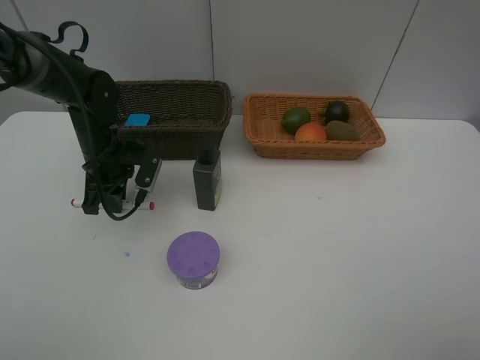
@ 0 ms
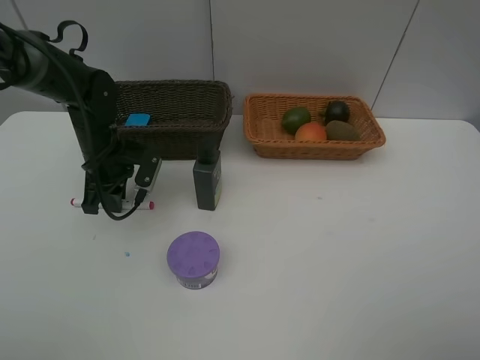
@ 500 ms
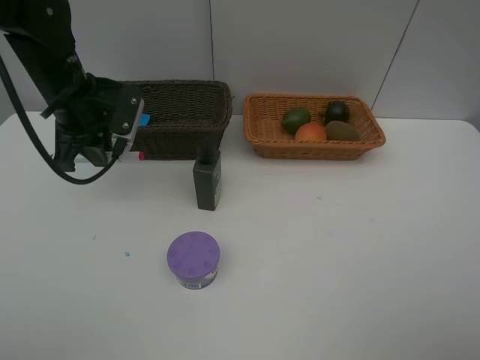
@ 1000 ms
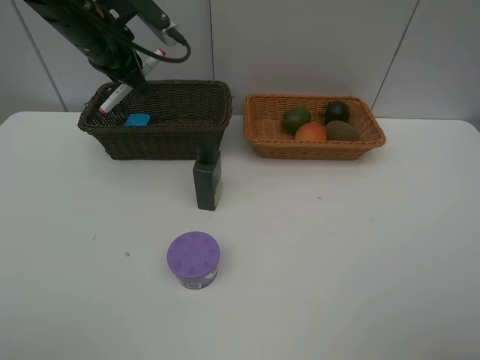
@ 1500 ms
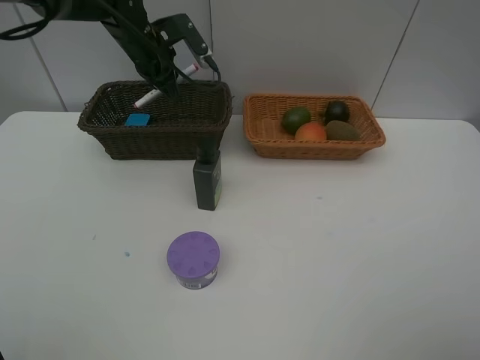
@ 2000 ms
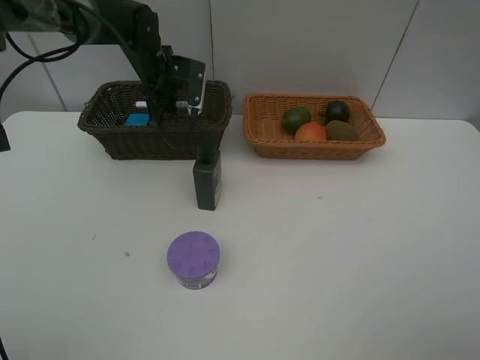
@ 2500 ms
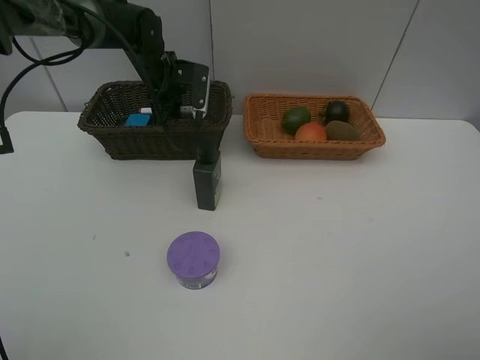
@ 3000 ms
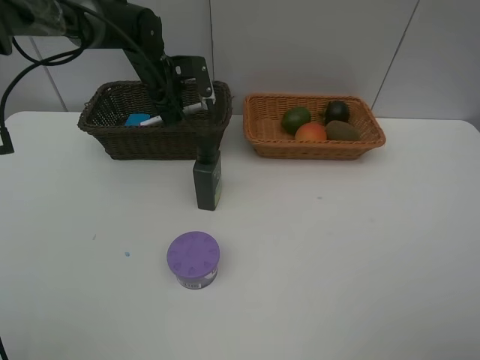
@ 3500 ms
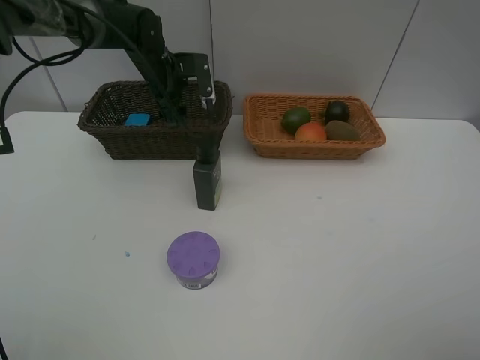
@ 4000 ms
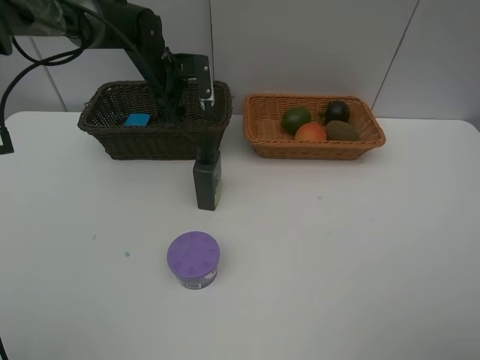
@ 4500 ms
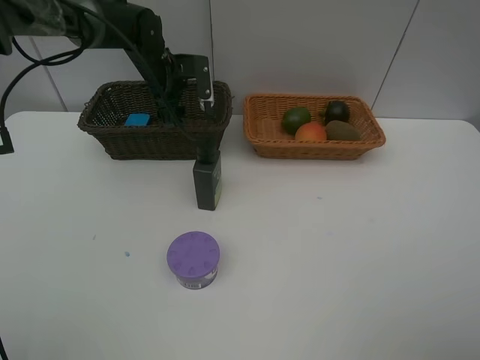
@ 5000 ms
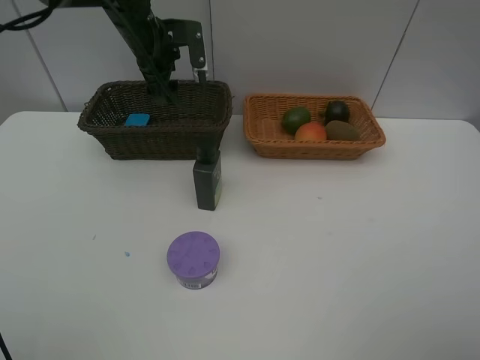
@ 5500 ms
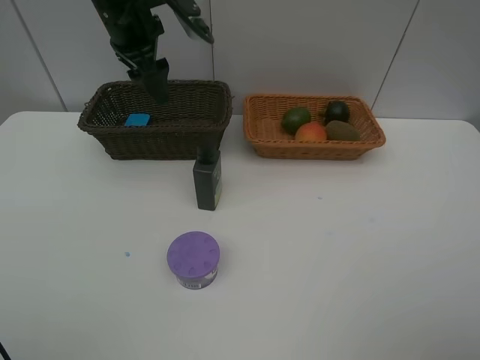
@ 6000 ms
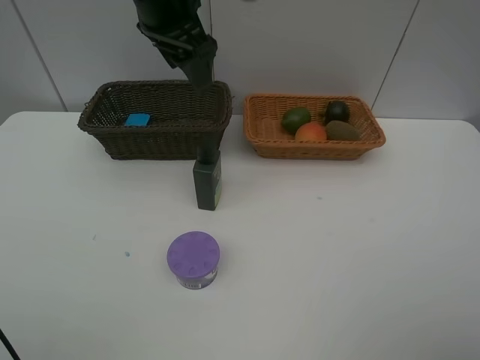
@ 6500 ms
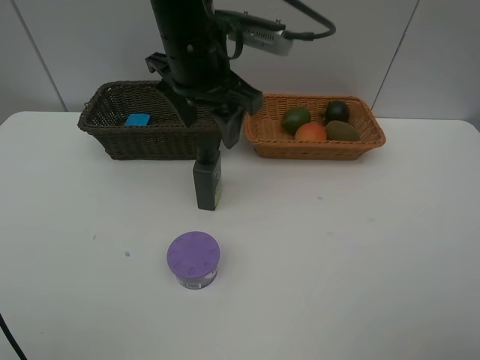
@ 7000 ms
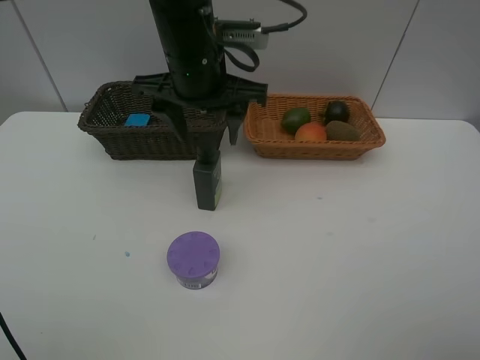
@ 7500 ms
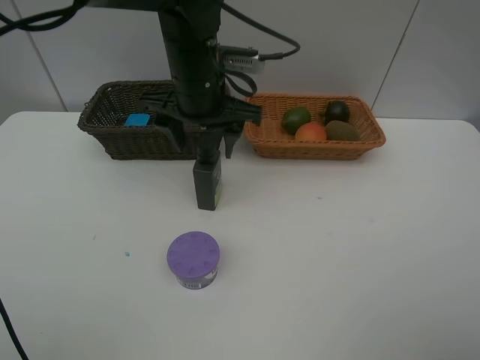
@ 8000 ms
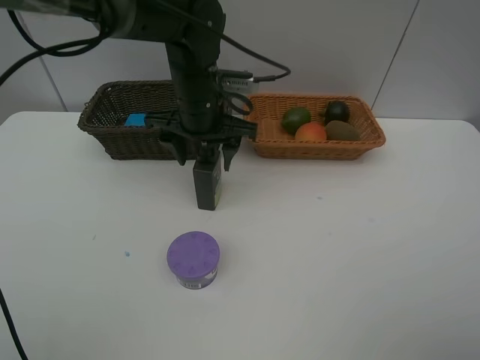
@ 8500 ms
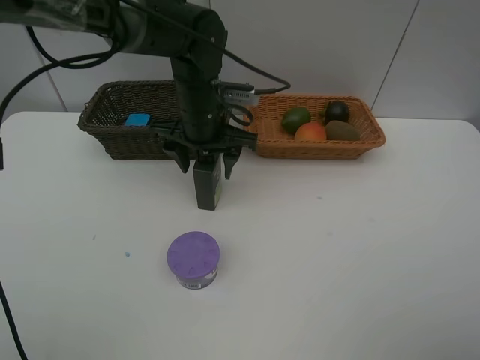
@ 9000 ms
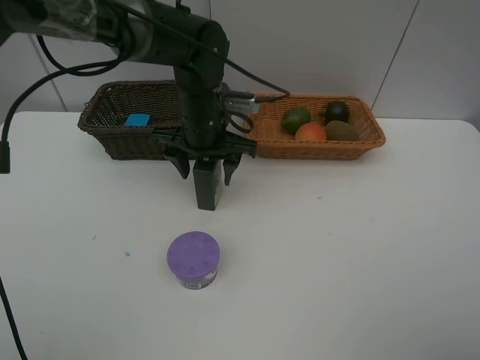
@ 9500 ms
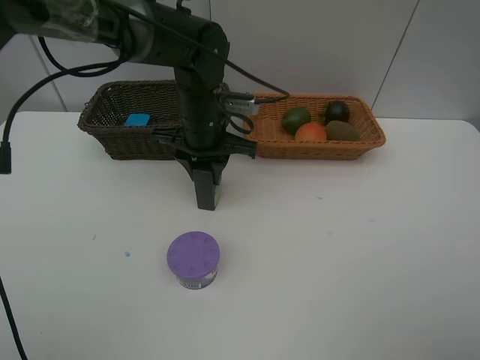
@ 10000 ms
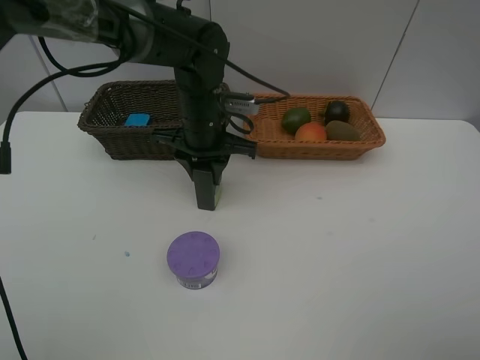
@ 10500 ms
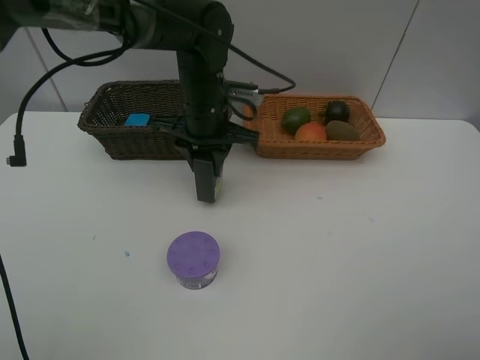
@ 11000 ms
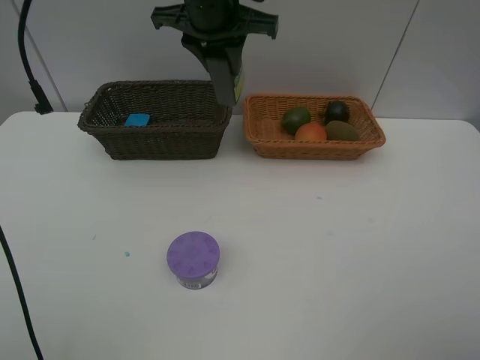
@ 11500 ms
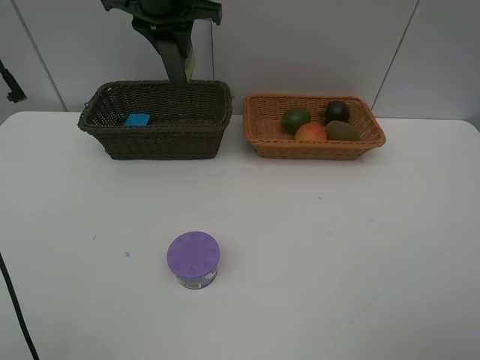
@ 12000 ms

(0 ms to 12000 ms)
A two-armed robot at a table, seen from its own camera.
Task of the whole recording: Place multiple objects separately in different baskets.
Step, 1000 ms - 5000 ms: Place the red marker in the dark basket with left gripper.
Step, 5500 ms - 11000 ms: Pick up the hard facial cleanser with left gripper.
0 ms - 2000 ms: The left gripper shifts some 20 cm forward, upward and to the right.
2000 ms - 4000 ms: The left gripper opens its fingers.
4000 ms - 6000 ms: The left gripper is displaced upward and backward by roughly 15 cm.
6000 ms - 8000 ms: The left gripper travels to the right, backward and downward by about 15 cm.
8000 ms - 10000 ms: The left gripper goes roughly 5 cm downward, and closes.
10000 ms - 12000 ms: The left gripper goes roughly 20 cm upward, forward and to the left.

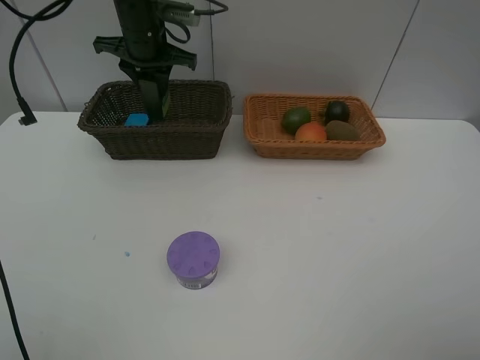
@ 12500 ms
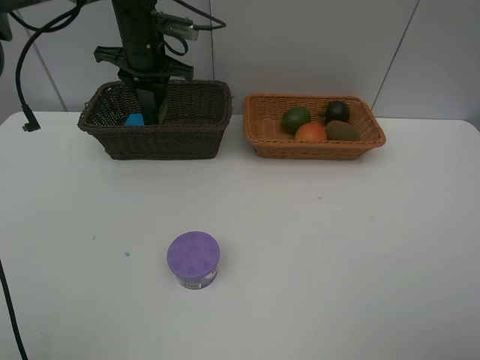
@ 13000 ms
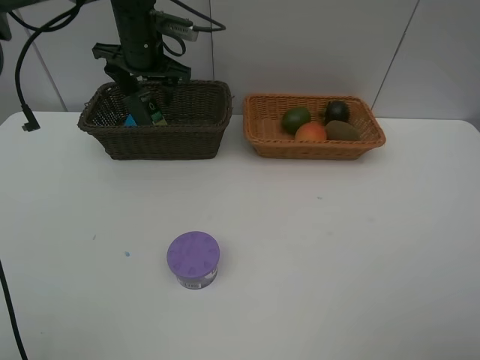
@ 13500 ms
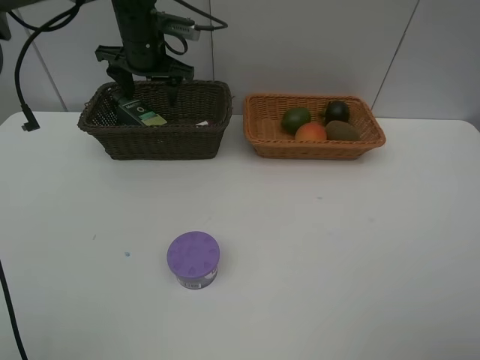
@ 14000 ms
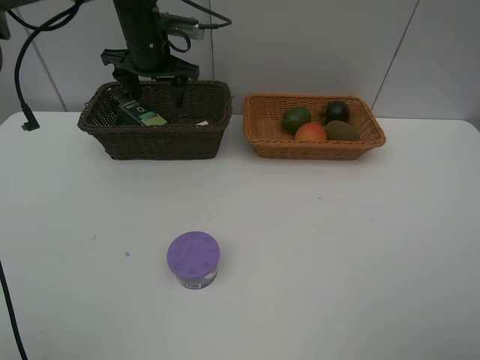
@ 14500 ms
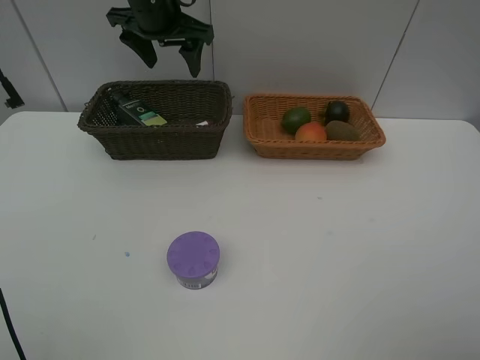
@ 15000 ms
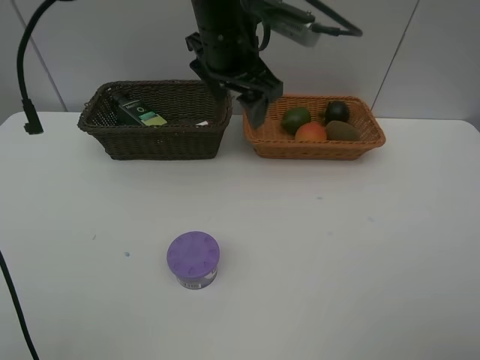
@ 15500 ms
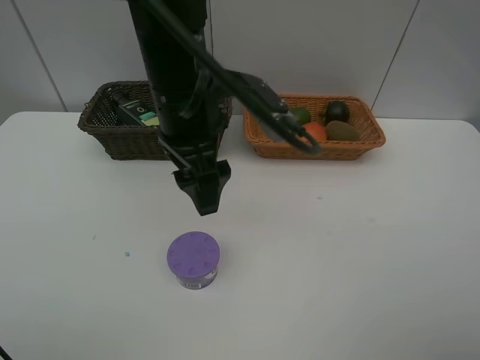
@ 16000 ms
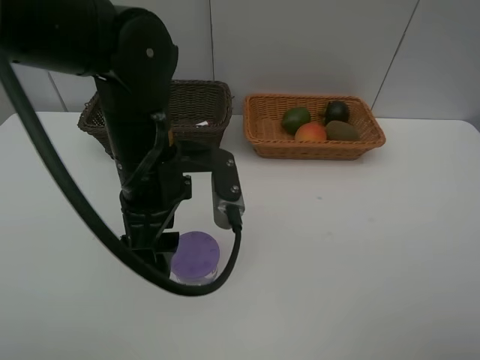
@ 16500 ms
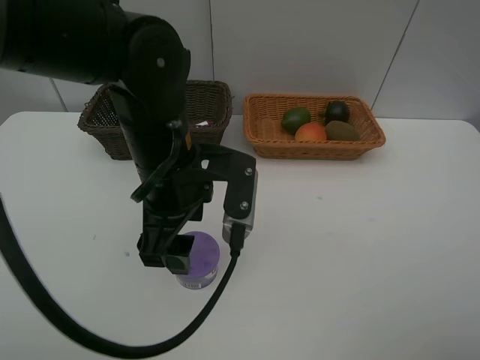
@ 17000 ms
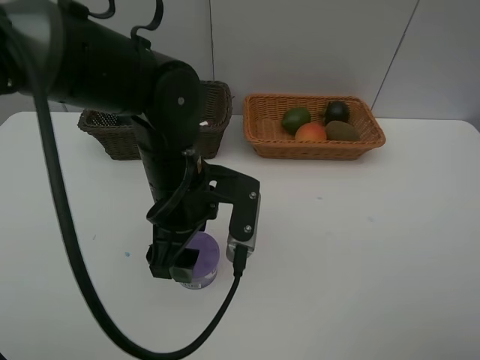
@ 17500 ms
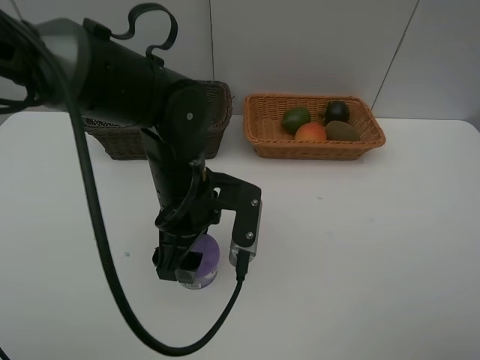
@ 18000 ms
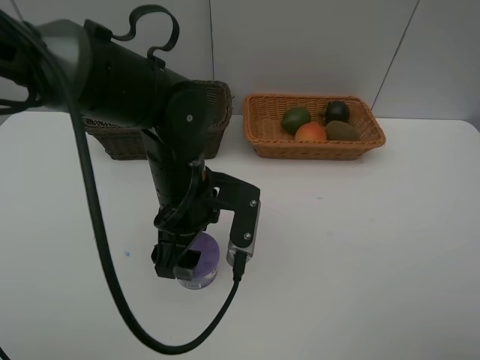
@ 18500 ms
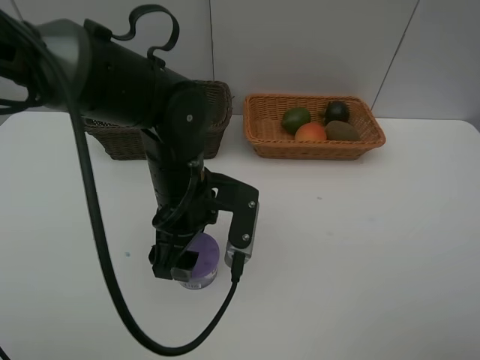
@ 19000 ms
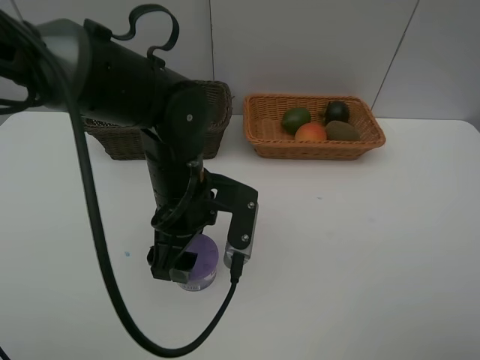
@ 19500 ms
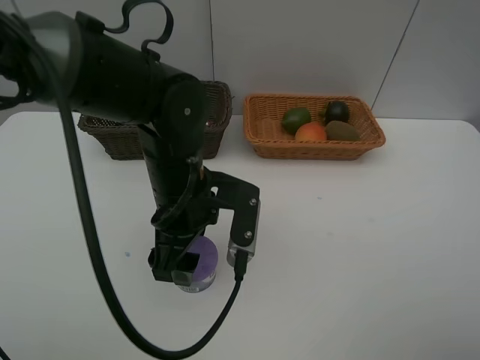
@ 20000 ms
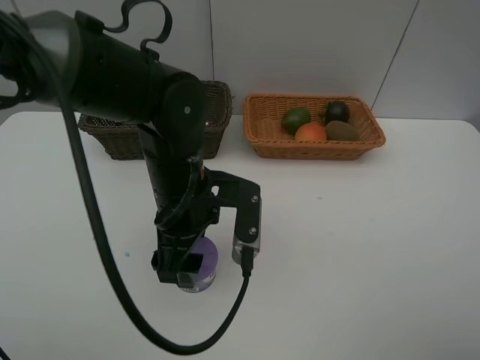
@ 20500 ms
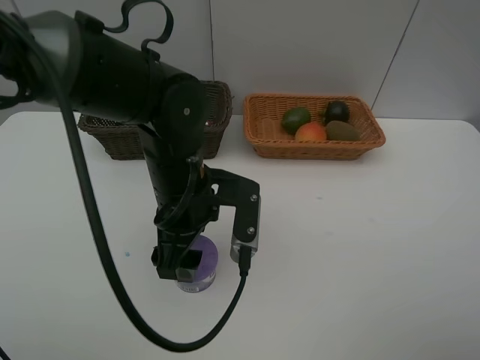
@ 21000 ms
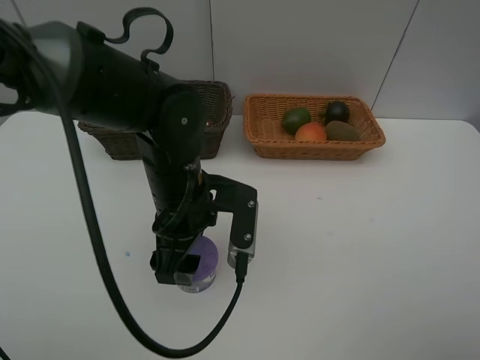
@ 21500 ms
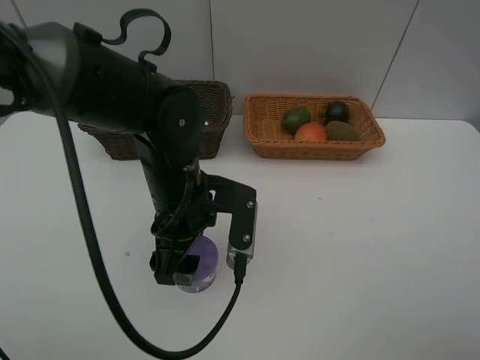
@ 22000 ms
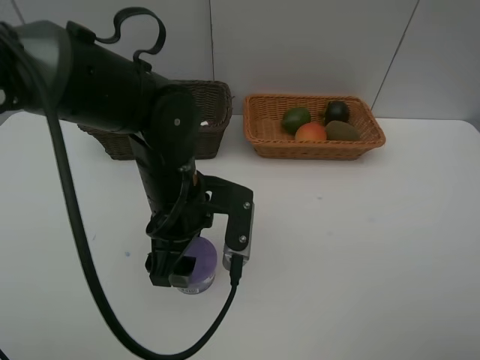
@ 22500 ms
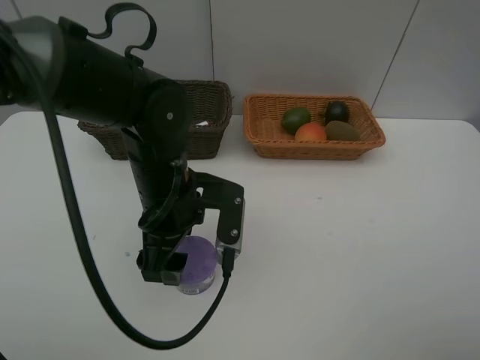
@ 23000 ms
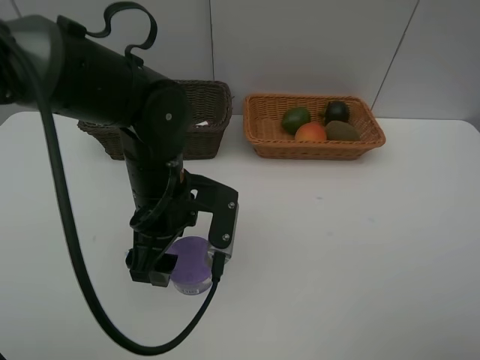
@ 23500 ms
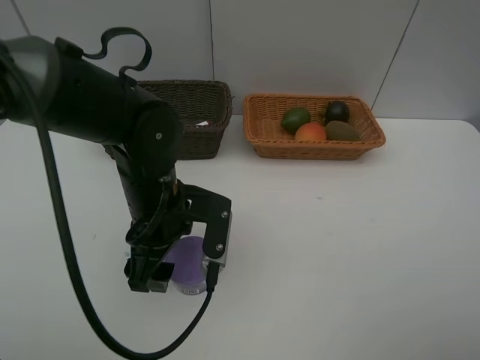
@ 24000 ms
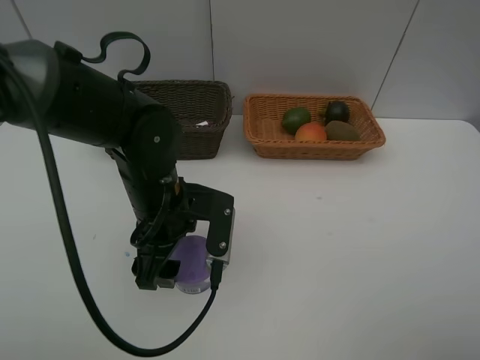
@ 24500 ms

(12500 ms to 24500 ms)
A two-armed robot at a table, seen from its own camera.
Task of the whole recording: Place multiple objects separately in different baskets.
Step, 12500 ms - 14500 ms: Place the hard facial cleanser in the dark basket with left gripper.
12500 ms - 14500 ms: The left gripper opens.
14500 ms - 16500 ms: The left gripper heads backward, covering about 25 cm.
16500 ms - 18500 ms: The left gripper ends up some 5 cm from where it was.
18500 ms - 20500 ms: The grippers make only small movements.
20500 ms - 22500 ms: Both grippers stay put.
22500 ms - 24500 ms: There are only small adjustments of the grippers.

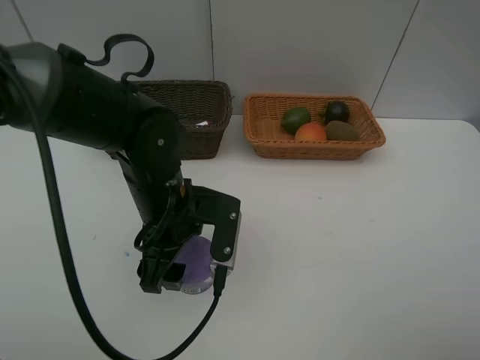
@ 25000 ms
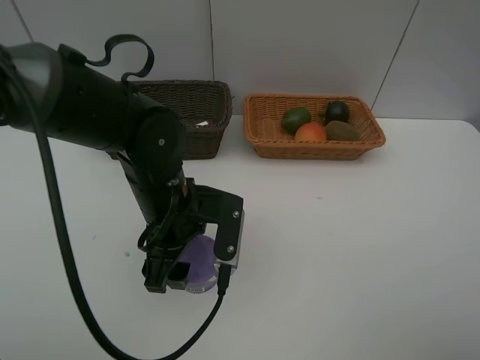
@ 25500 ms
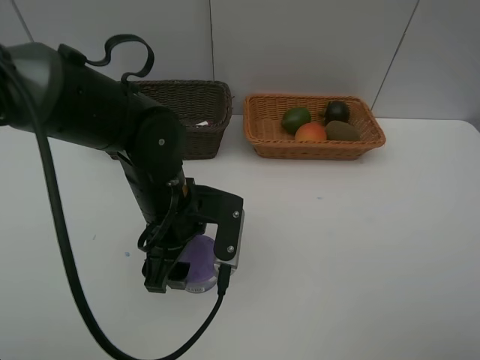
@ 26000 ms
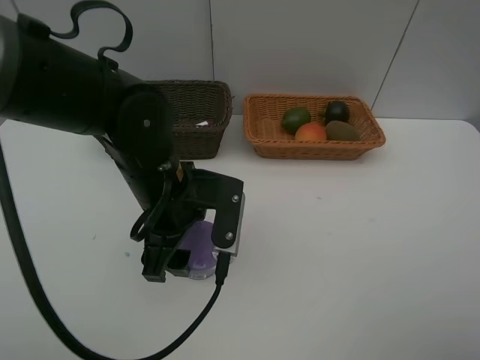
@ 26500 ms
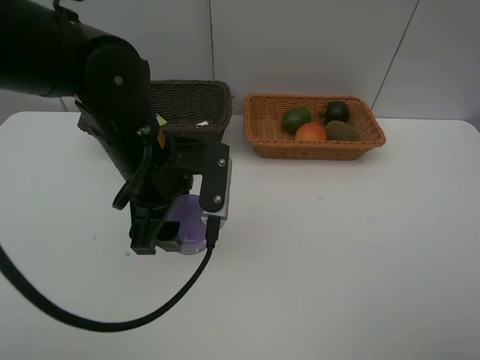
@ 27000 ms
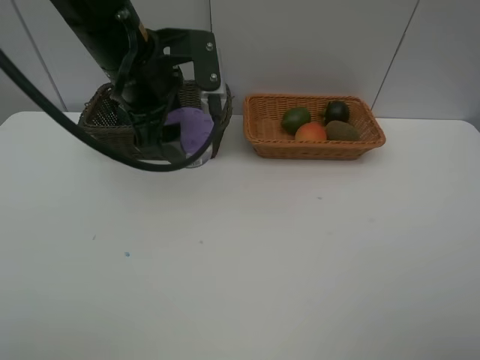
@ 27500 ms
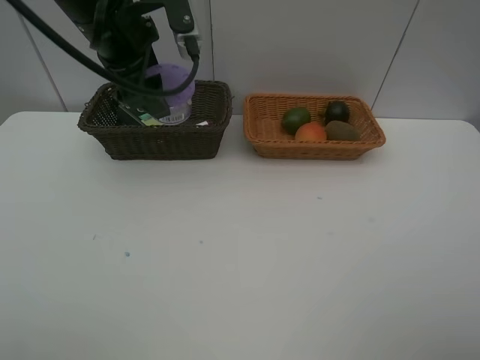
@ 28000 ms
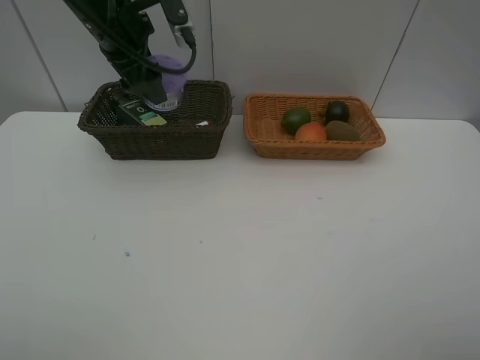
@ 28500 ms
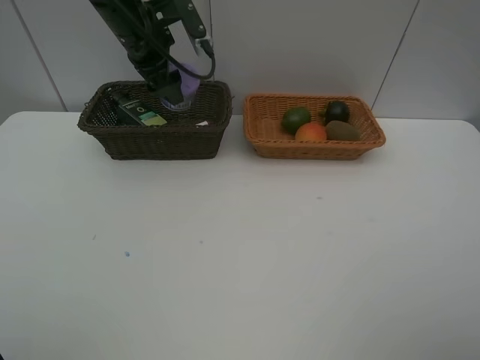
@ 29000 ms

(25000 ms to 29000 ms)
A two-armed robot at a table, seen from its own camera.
Task of the whole recording: Place multiple objects separately in different baskets.
25000 ms - 27000 ms: The left gripper moves upward, about 5 cm.
27000 ms - 29000 ms: The left gripper travels forward by roughly 20 cm.
